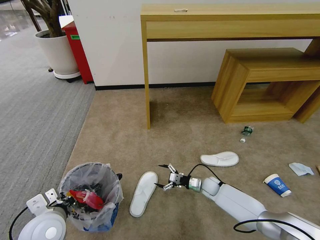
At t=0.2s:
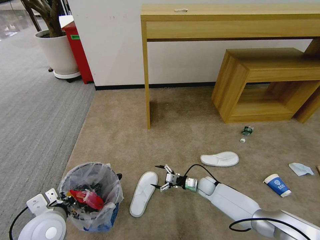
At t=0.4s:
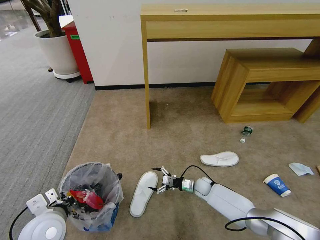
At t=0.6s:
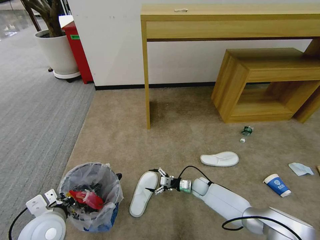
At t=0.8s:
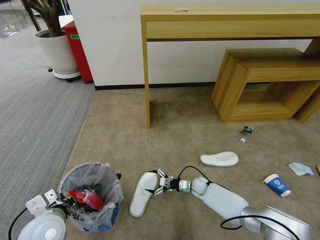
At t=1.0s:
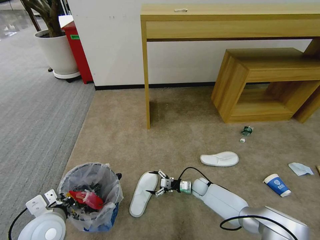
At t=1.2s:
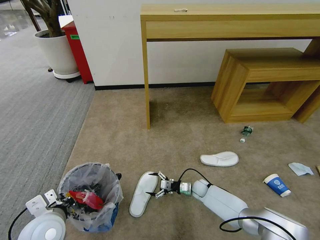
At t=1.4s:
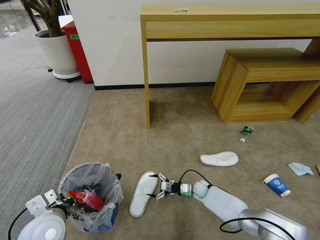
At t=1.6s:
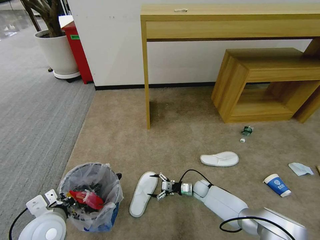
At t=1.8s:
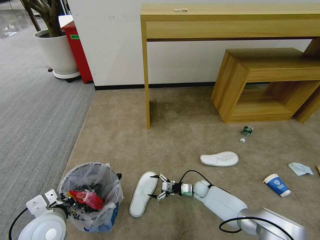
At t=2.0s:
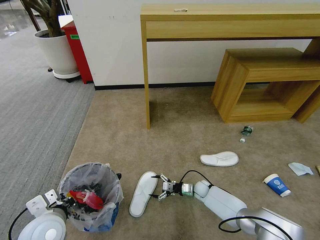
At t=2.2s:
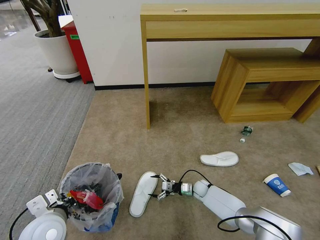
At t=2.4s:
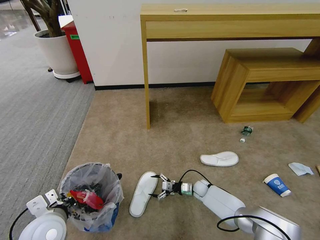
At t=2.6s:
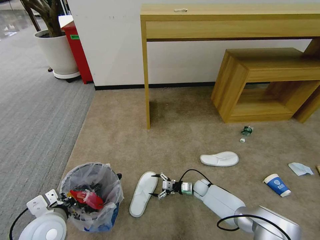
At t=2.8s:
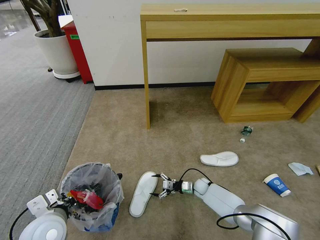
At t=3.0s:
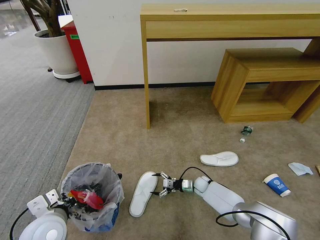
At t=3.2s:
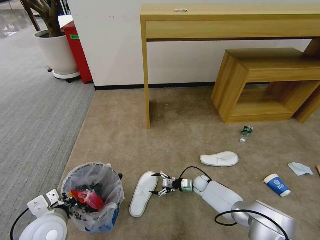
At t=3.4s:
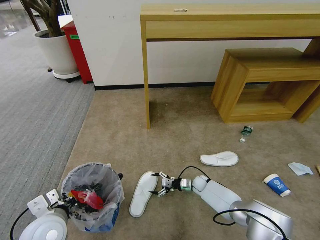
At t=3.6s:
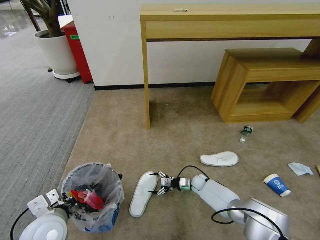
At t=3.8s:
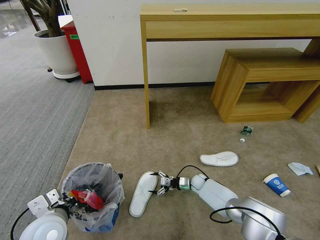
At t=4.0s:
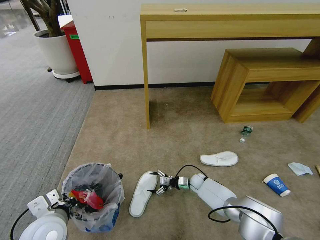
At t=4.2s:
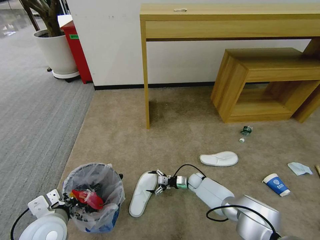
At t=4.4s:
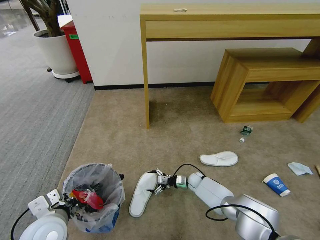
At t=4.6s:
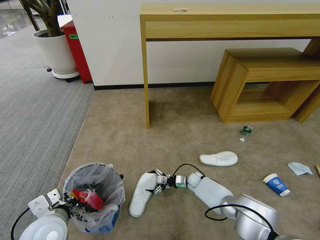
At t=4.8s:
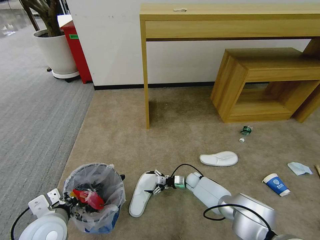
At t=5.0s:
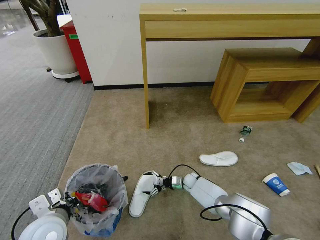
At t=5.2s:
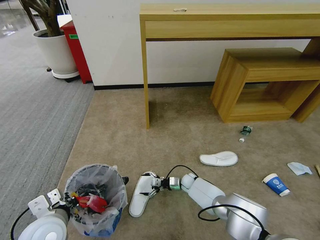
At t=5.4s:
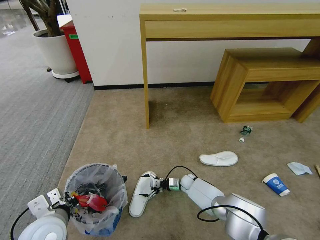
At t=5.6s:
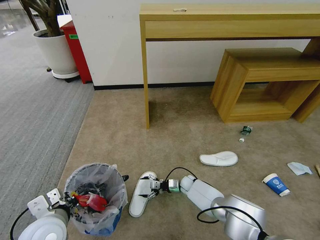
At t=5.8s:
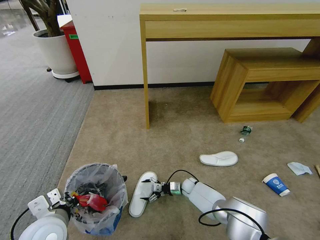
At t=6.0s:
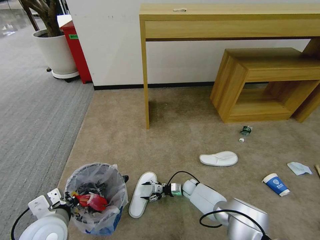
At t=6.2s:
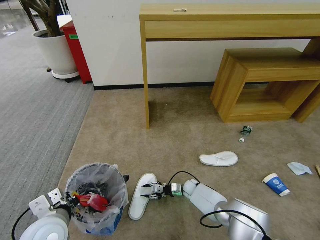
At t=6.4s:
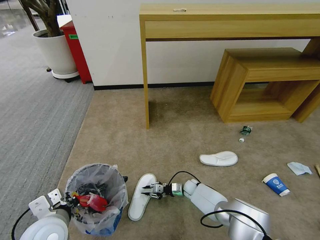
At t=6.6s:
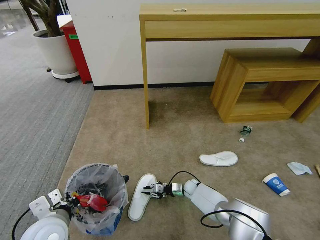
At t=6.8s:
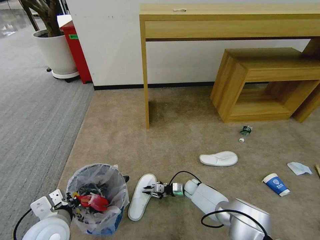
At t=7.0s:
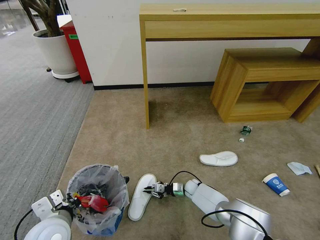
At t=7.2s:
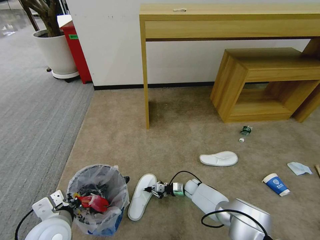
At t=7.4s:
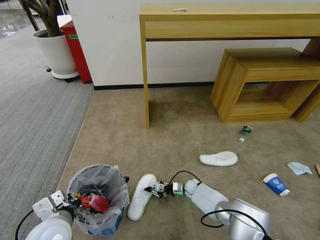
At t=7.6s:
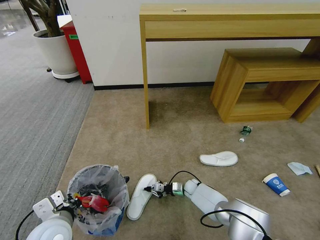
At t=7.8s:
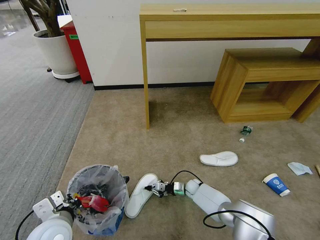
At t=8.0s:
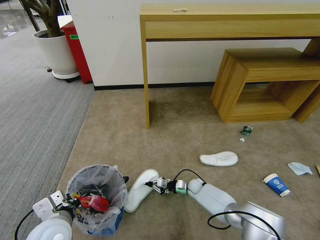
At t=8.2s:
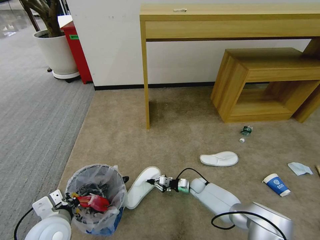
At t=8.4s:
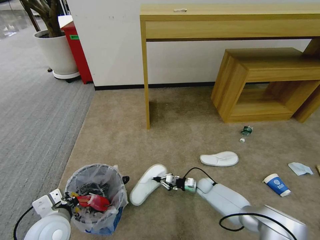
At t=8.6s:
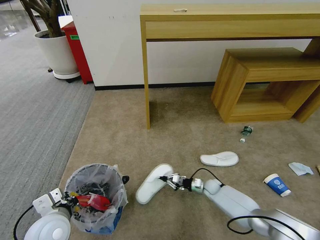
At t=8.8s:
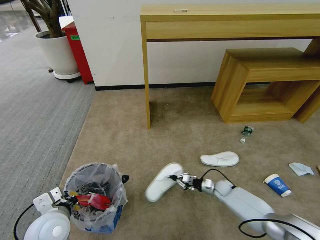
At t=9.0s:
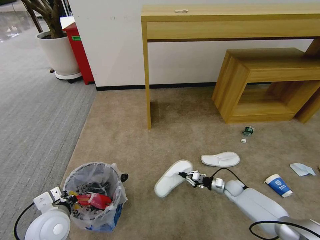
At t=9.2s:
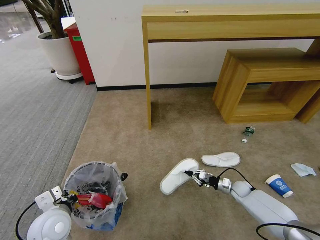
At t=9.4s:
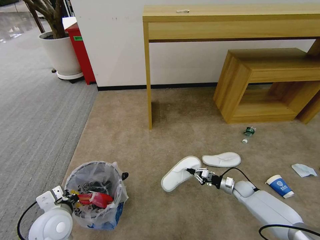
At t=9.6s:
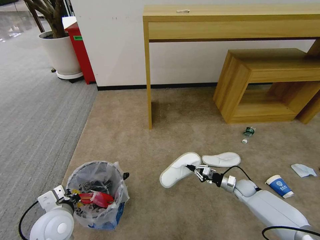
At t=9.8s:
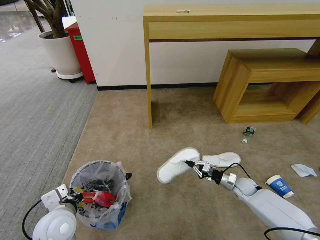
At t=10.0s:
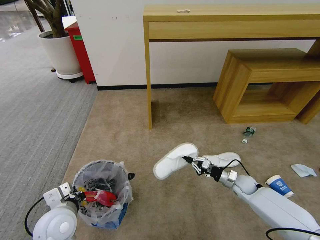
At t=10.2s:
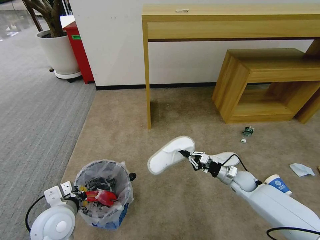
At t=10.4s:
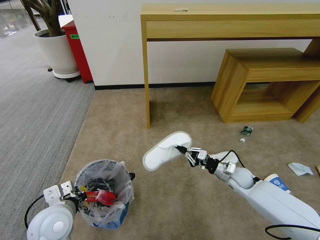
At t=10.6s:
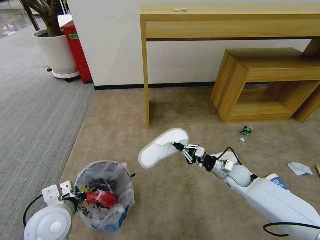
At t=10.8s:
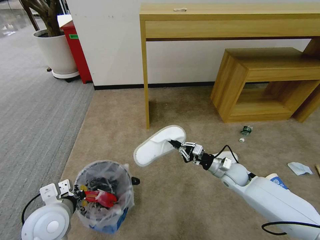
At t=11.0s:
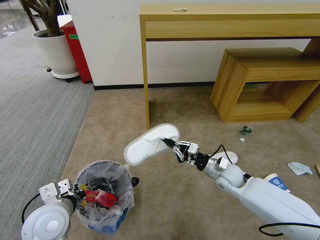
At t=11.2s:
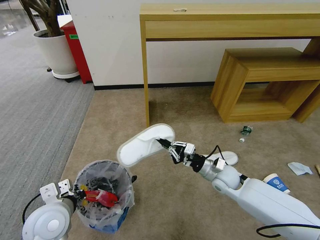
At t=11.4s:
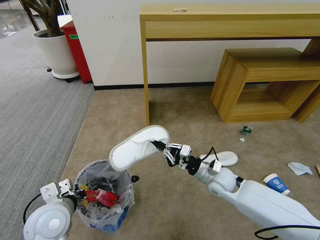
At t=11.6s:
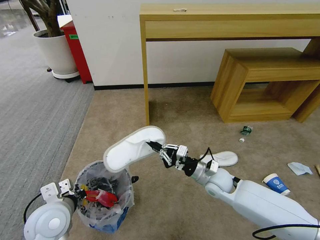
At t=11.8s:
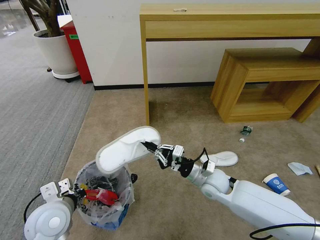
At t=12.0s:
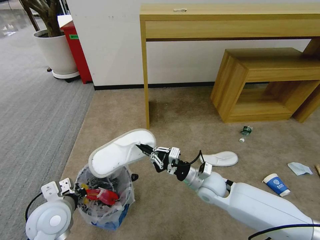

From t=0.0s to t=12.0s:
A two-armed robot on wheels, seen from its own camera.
Task of the whole recording: Pick up the trash bin and place the garbage on the floor into it.
From t=0.0s to t=1.6s: The right gripper shifts by approximately 5 cm.
From t=1.6s to t=4.4s: There are only small adjustments of the grippers.
From t=4.4s to t=6.0s: The grippers make only small movements.
From t=6.0s to t=7.6s: The right gripper closes its fingers.
From t=7.6s to t=9.0s: The right gripper travels to the right by roughly 20 cm.
From t=9.0s to t=10.4s: The right gripper moves upward, roughly 15 cm.
From t=10.4s to t=12.0s: The right gripper moves to the left, upward and backward, approximately 15 cm.

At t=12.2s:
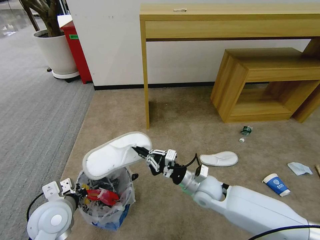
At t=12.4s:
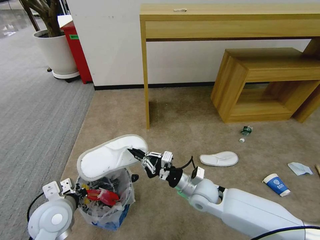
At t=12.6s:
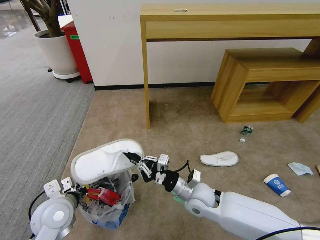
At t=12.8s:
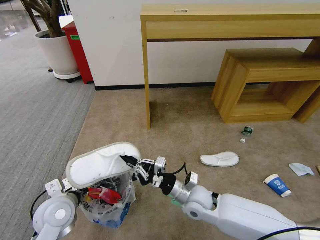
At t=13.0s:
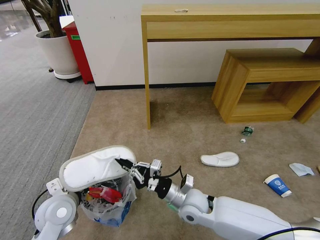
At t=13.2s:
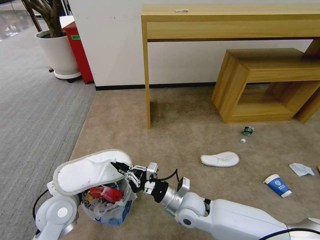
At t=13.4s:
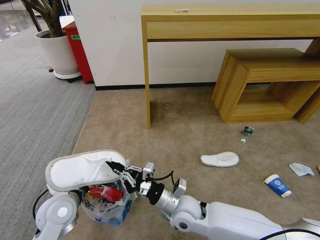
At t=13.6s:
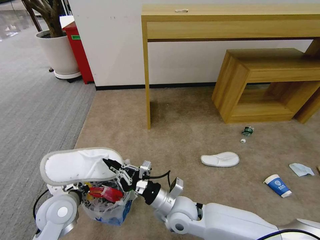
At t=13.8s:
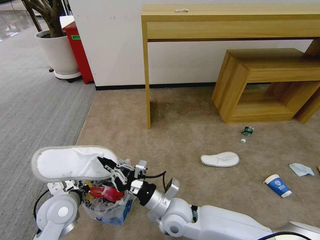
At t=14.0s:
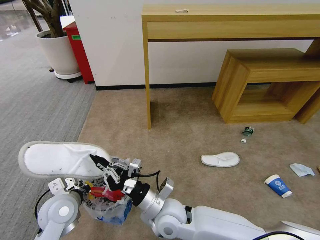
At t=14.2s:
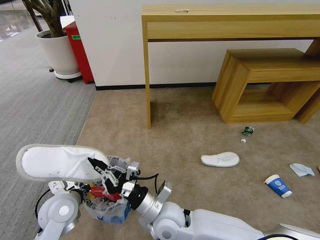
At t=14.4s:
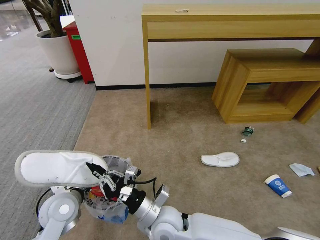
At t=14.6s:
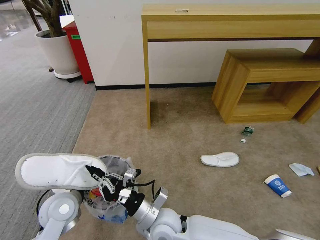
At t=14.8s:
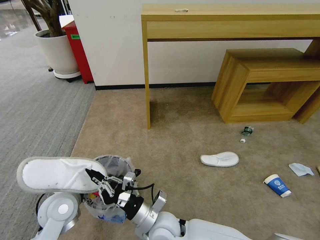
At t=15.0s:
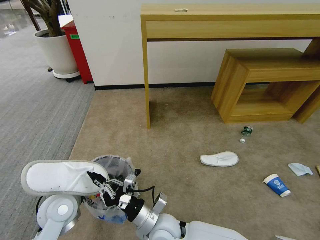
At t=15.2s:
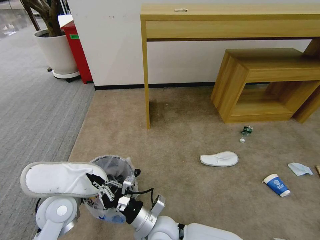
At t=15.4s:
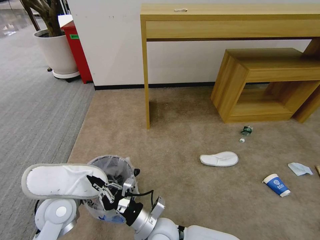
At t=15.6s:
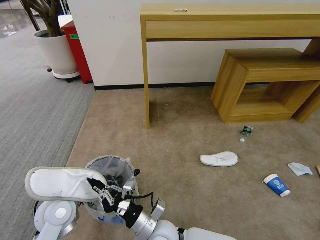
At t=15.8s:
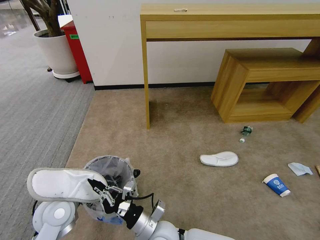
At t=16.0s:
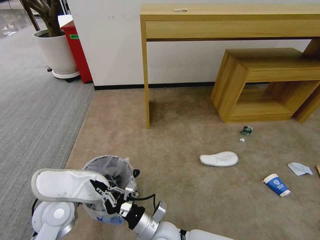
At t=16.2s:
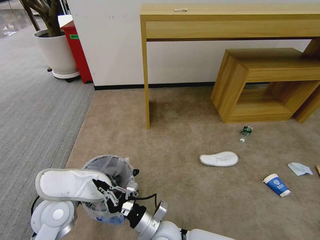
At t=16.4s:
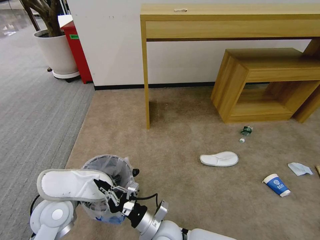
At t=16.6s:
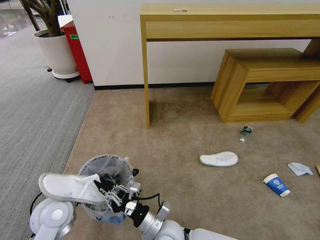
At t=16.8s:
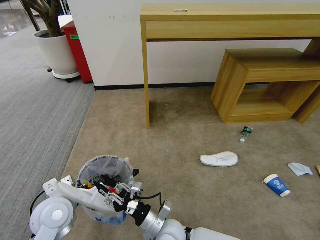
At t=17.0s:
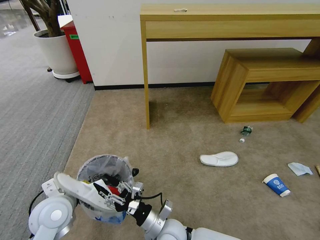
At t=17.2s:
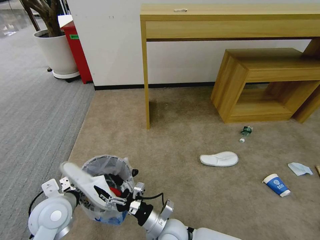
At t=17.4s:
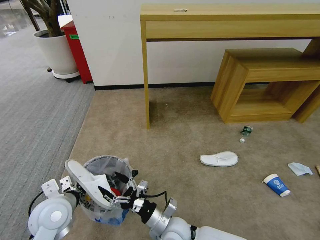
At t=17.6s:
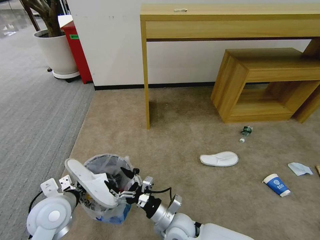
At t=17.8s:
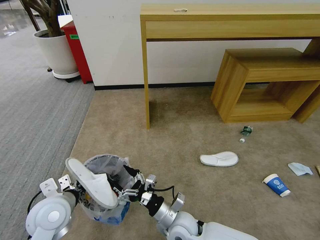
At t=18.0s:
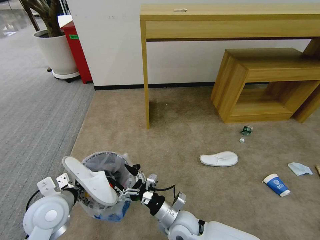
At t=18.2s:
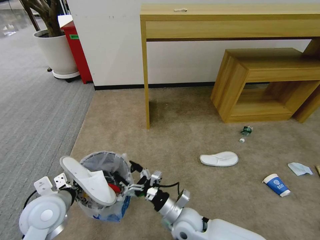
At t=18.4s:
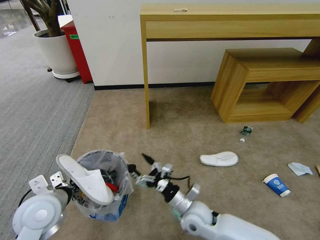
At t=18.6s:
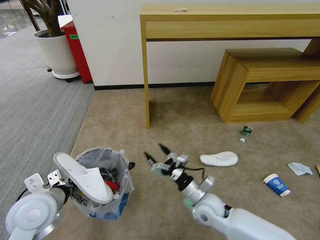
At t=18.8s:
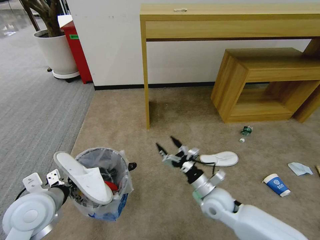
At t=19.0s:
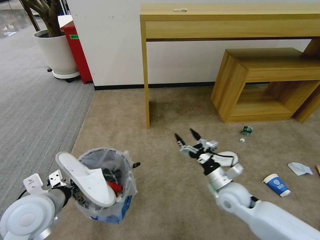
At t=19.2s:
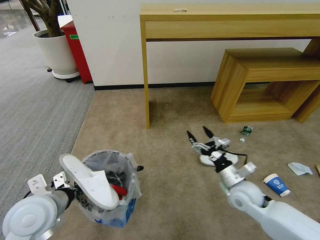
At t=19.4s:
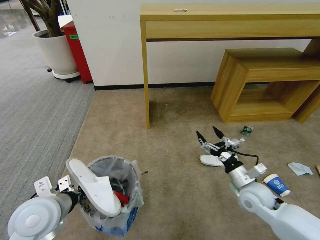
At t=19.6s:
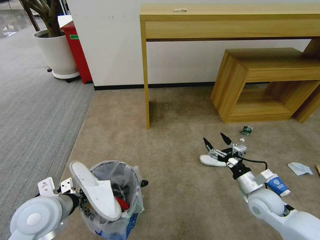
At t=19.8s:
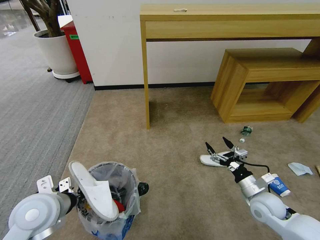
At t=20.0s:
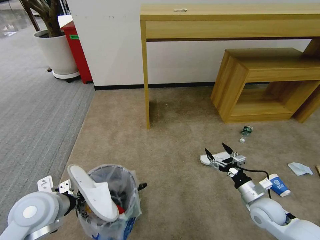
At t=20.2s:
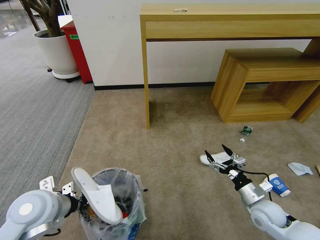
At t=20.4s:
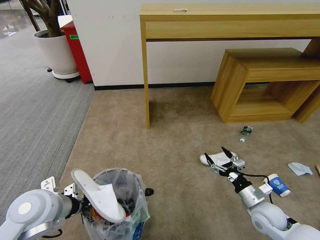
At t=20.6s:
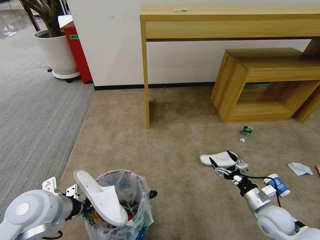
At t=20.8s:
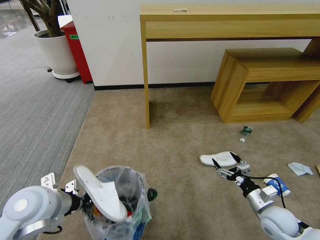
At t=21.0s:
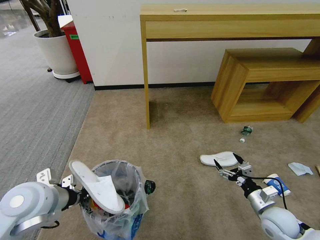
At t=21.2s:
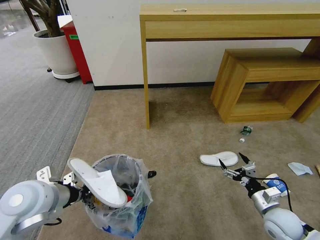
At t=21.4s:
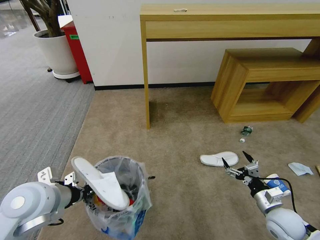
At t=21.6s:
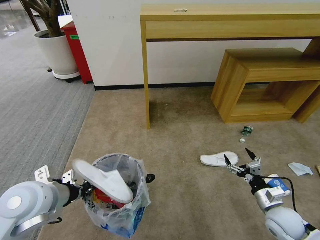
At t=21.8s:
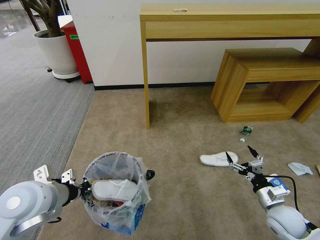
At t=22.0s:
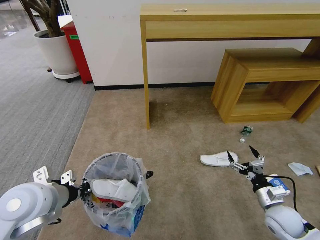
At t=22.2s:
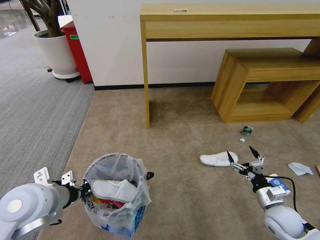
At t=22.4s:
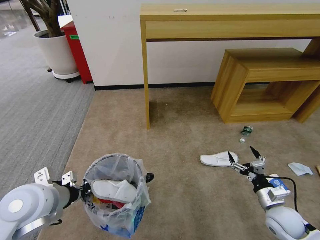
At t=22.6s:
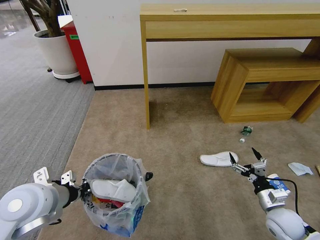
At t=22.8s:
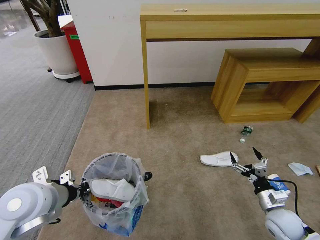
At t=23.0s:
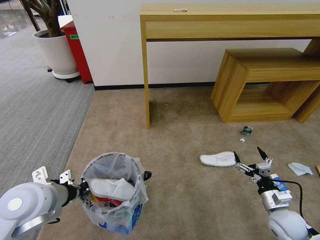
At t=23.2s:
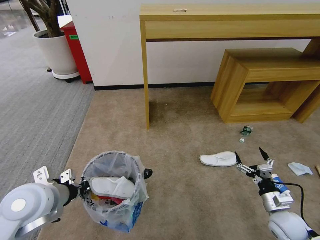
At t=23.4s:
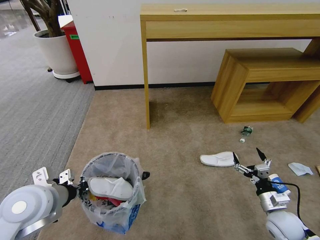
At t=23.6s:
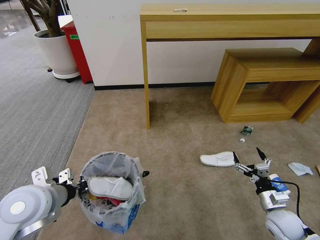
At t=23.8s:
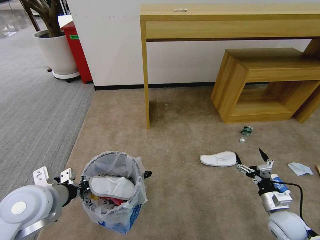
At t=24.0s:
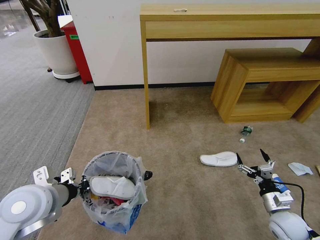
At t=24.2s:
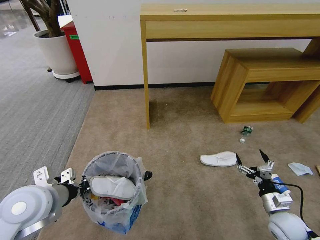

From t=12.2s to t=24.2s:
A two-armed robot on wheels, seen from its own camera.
Task of the whole recording: Pick up the trash bin and place the garbage on the floor into it.
From t=12.2s to t=13.8s: The right gripper travels to the left and backward by approximately 15 cm.
From t=13.8s to t=15.2s: The right gripper shifts by approximately 5 cm.
From t=15.2s to t=16.6s: The grippers stay close to where they were, moving slightly.
From t=16.6s to t=18.2s: The right gripper heads to the right, covering about 5 cm, and opens up.
From t=18.2s to t=19.8s: The right gripper is displaced to the right by roughly 25 cm.
From t=19.8s to t=21.2s: The right gripper moves approximately 5 cm.
From t=21.2s to t=24.2s: The grippers move only a little.
